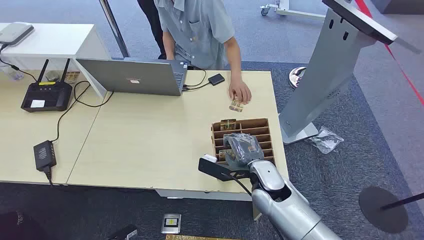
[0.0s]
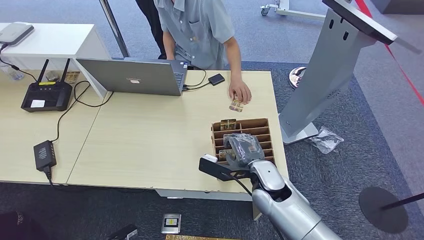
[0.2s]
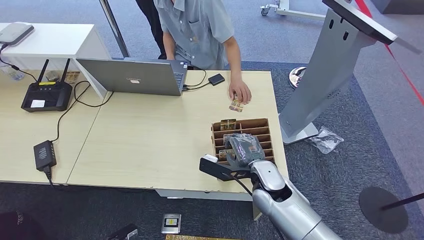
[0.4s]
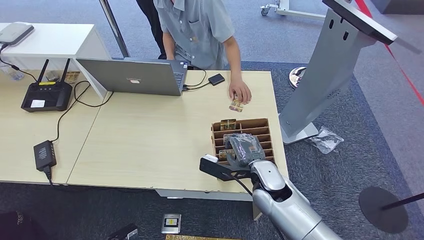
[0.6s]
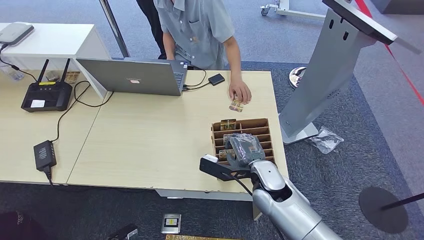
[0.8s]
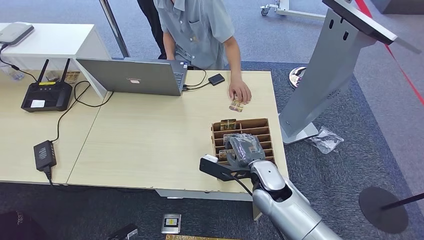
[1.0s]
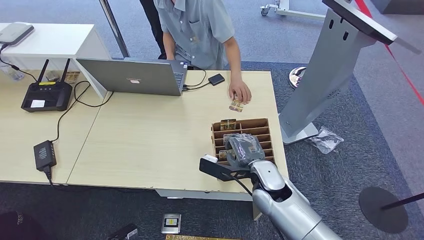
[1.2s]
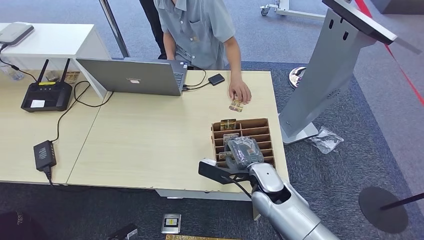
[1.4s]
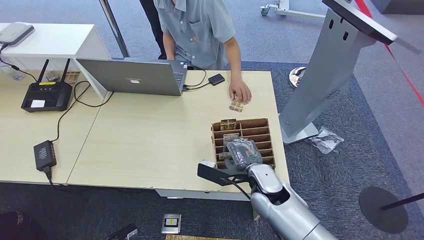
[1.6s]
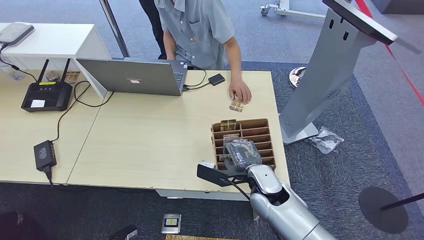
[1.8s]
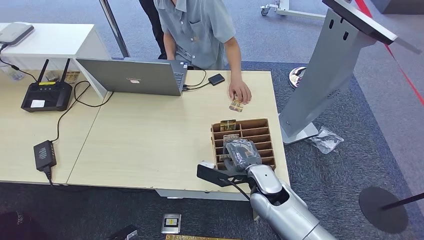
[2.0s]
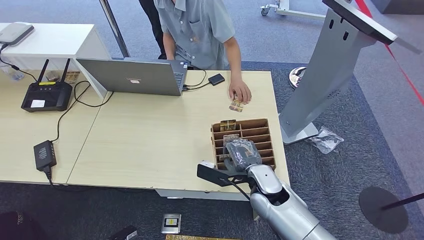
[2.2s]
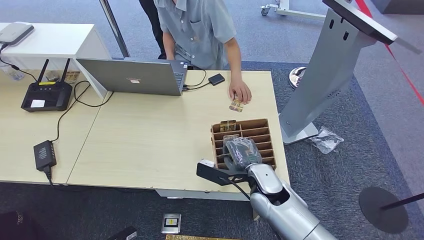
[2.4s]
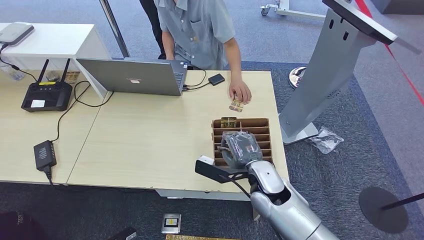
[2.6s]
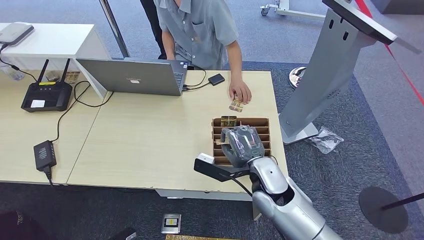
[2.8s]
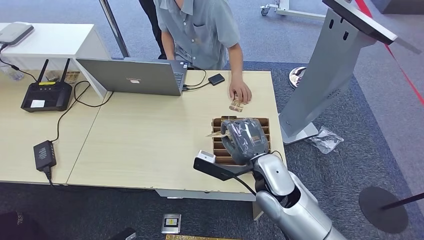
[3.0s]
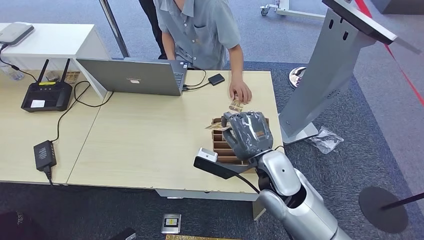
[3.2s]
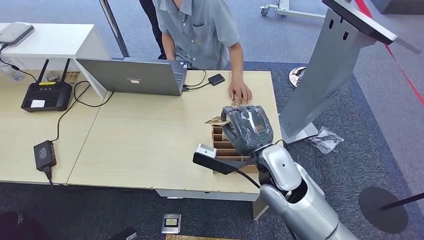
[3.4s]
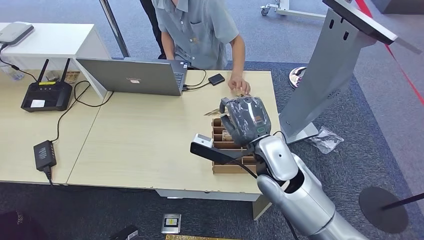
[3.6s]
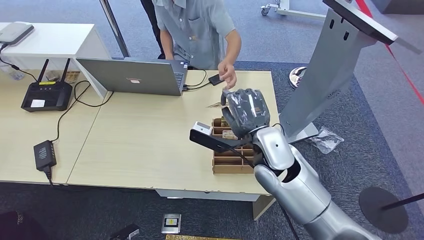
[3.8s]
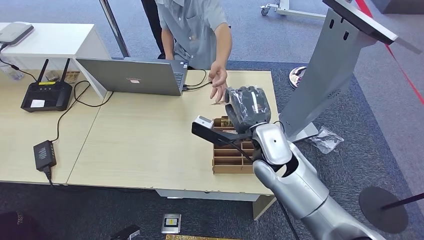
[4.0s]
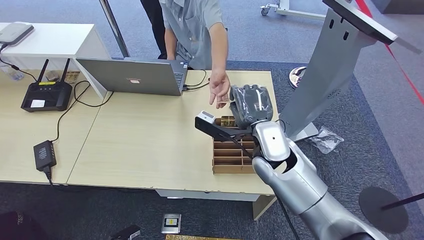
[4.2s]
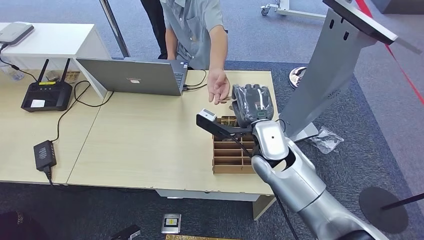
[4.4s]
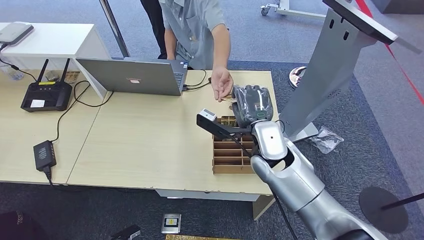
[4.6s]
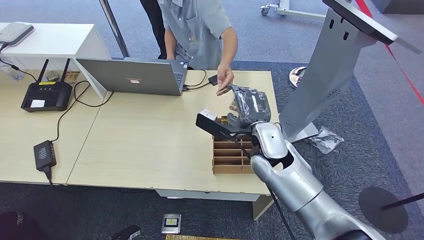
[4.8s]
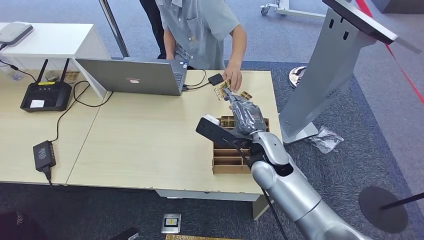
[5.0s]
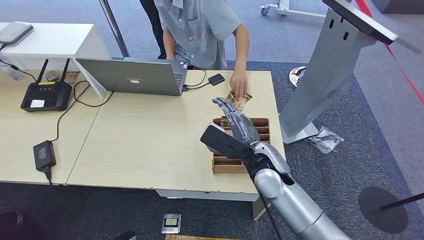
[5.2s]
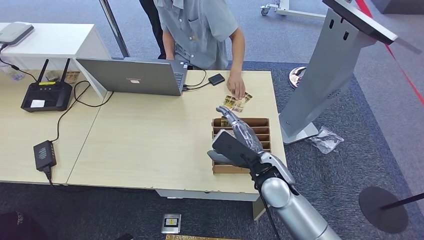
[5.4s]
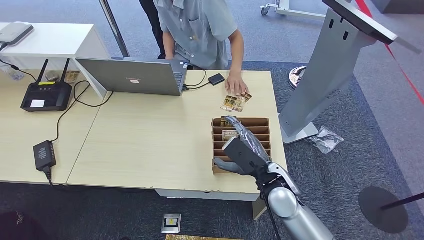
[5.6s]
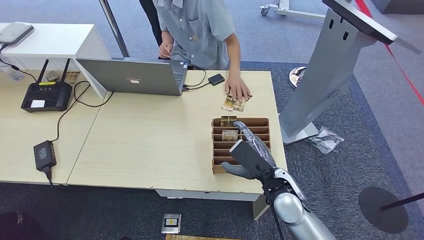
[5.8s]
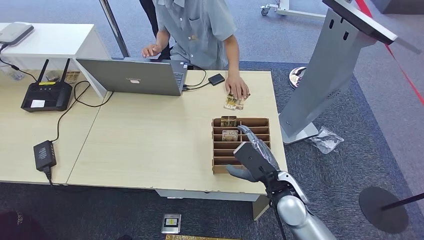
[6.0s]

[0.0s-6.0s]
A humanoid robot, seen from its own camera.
Step, 0.0s to 3.4s: Pick up the room card from the card holder.
Step, 3.6s to 6.0s: Hand the room card to the target.
1.6s to 3.0s: The right hand moves upward, about 10 cm.
3.0s to 4.4s: The right hand heads forward, covering roughly 10 cm.
4.4s to 6.0s: The right hand travels downward, backward and to the right by some 15 cm.
